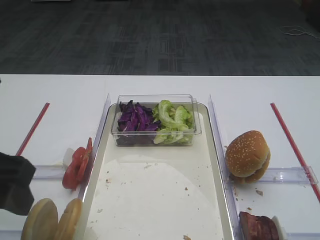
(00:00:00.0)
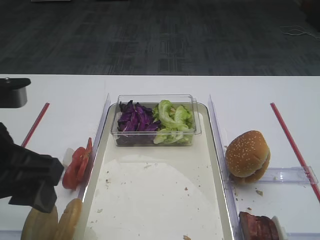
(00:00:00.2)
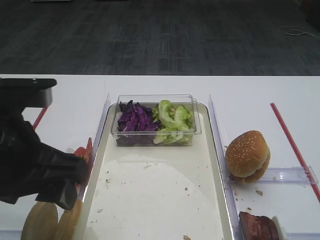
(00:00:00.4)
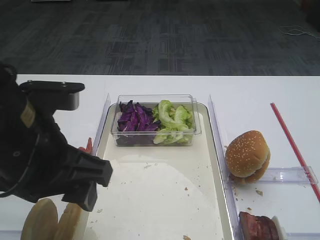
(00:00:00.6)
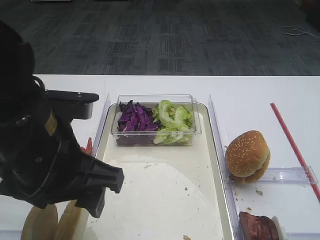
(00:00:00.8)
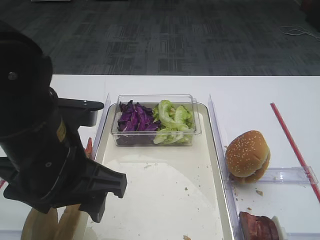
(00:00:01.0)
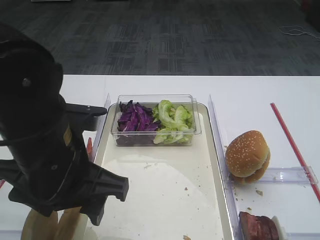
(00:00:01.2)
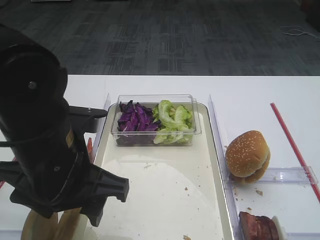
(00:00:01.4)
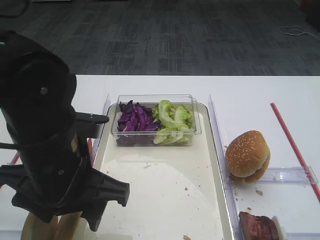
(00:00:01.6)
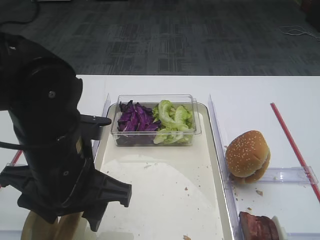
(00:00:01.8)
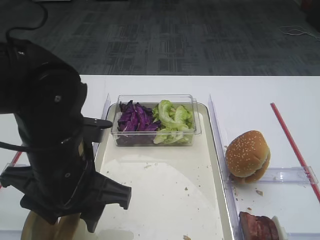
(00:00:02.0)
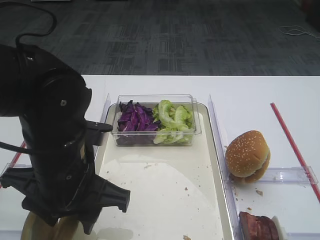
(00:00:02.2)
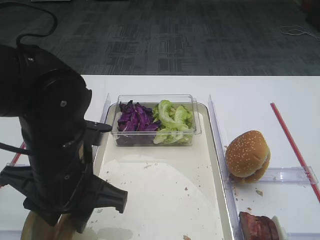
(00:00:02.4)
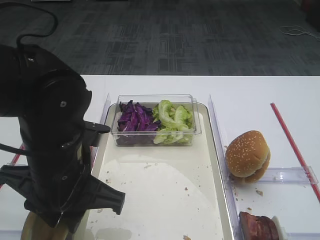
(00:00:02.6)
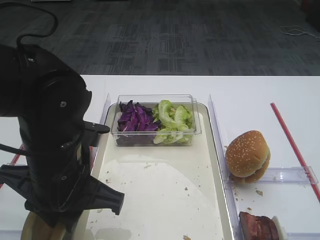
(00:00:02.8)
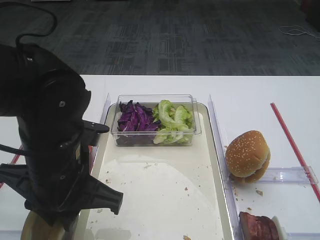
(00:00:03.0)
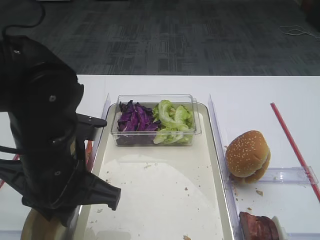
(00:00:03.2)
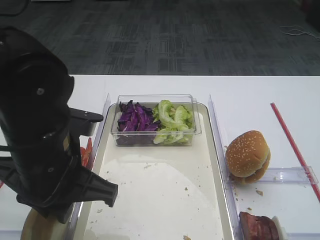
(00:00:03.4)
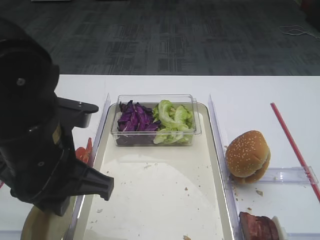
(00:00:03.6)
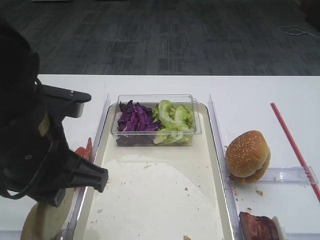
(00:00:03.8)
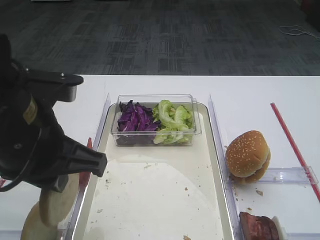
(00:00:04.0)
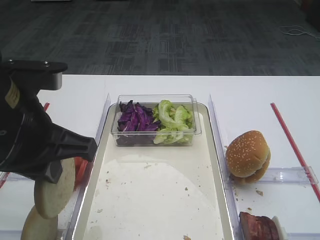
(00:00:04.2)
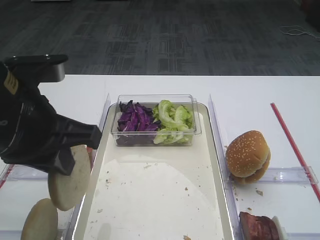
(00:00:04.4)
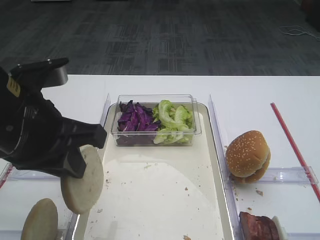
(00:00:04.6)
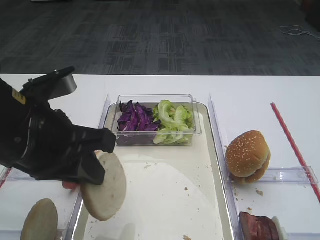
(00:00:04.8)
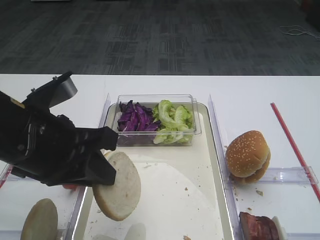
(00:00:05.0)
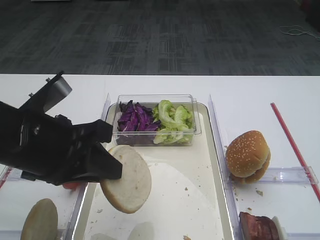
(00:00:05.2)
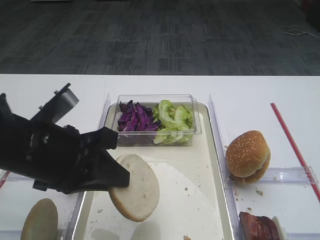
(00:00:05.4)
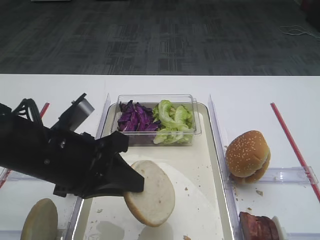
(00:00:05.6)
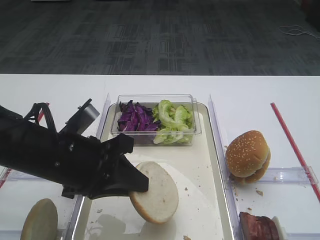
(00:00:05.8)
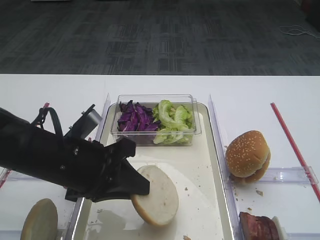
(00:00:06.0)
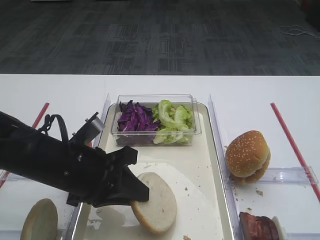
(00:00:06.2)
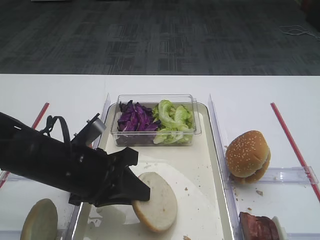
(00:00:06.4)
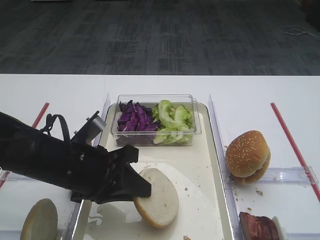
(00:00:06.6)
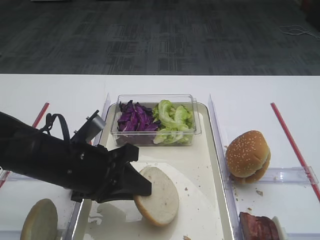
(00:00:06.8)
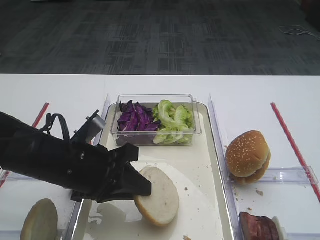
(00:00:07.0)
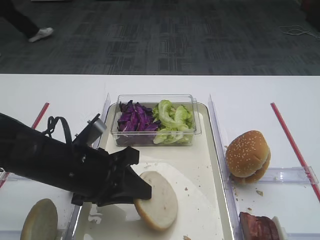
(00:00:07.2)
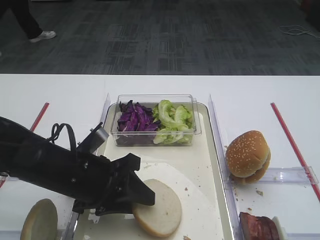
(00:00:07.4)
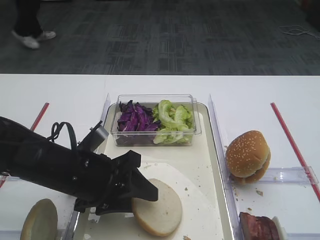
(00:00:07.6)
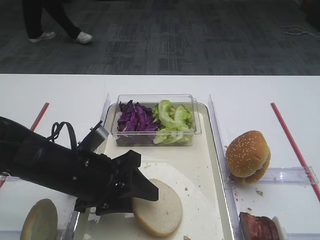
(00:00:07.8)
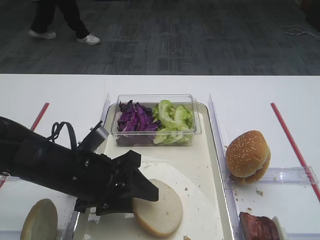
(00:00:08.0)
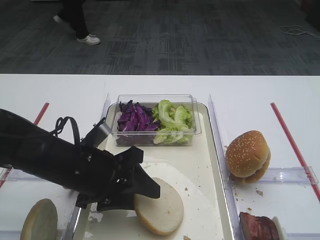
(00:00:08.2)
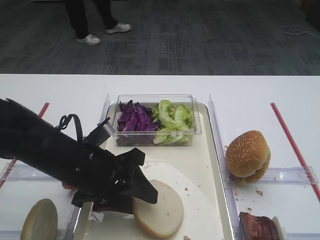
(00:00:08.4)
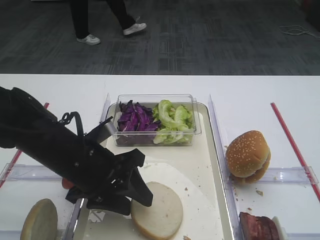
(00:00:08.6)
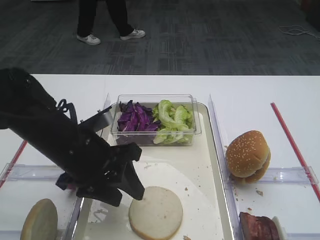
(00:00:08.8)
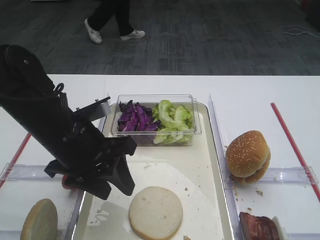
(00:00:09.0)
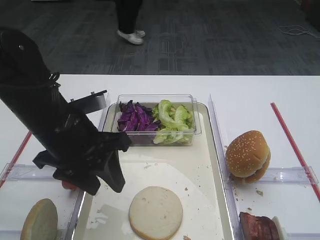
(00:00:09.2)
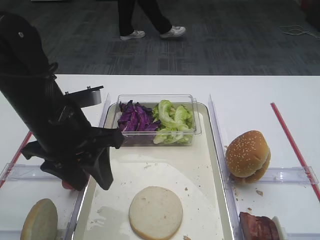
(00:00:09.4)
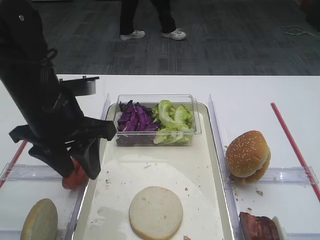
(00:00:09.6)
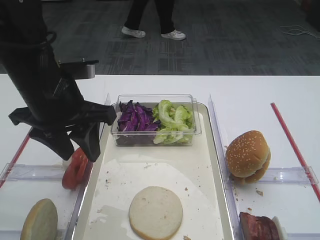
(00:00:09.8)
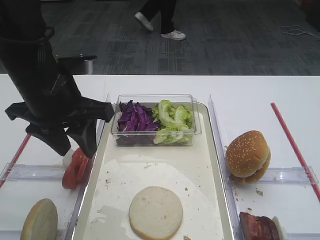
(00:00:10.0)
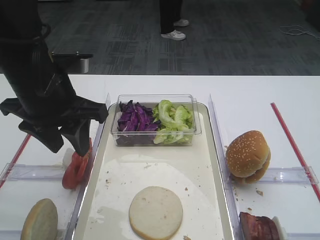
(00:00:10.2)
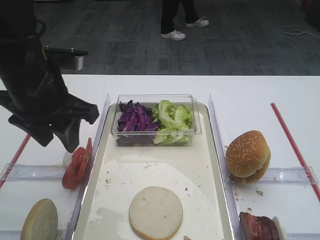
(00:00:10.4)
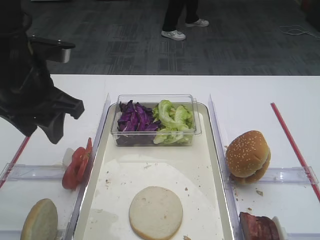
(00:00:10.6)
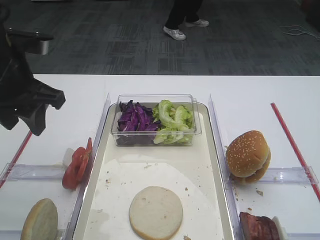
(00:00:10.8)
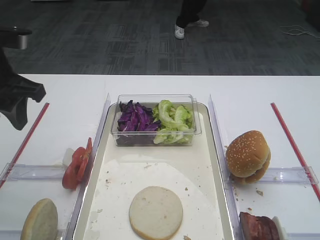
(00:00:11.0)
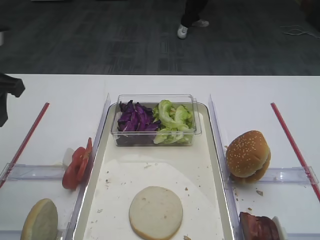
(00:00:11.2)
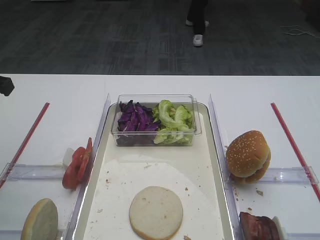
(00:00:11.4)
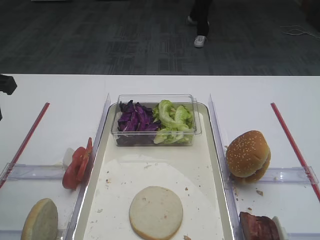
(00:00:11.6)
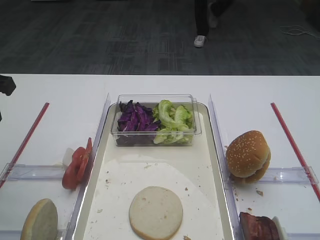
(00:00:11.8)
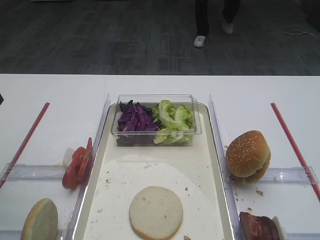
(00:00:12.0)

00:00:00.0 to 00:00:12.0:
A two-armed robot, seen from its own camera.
Step, 00:00:00.0 to 00:00:03.6: Pick up the bread slice with the left gripper.
Step, 00:00:03.8 to 00:00:08.8: Place the bread slice on the tray with the left gripper.
00:00:00.0 to 00:00:01.6: The left gripper shifts some 10 cm to the right and downward.
00:00:01.6 to 00:00:03.0: The left gripper closes its fingers.
00:00:03.0 to 00:00:04.4: The left gripper shifts roughly 10 cm upward.
00:00:04.4 to 00:00:06.0: The left gripper moves downward, some 10 cm.
00:00:06.0 to 00:00:07.6: The left gripper opens.
00:00:07.6 to 00:00:09.0: The left gripper moves upward, roughly 5 cm.
00:00:09.0 to 00:00:10.4: The left gripper travels upward by about 10 cm.
00:00:10.4 to 00:00:12.0: The left gripper moves to the left, some 10 cm.

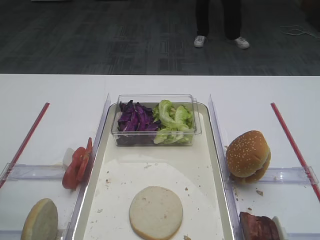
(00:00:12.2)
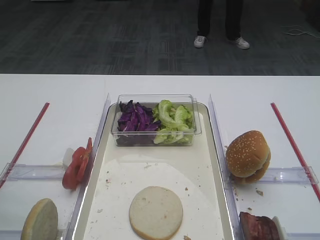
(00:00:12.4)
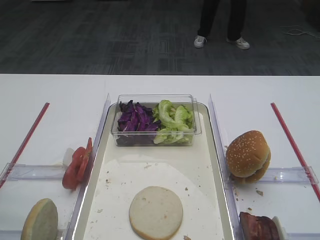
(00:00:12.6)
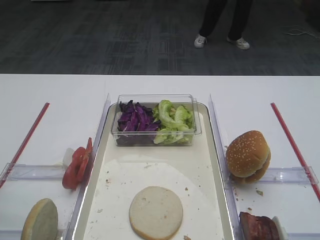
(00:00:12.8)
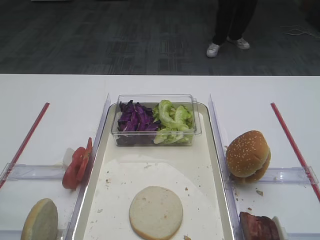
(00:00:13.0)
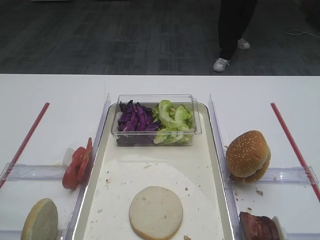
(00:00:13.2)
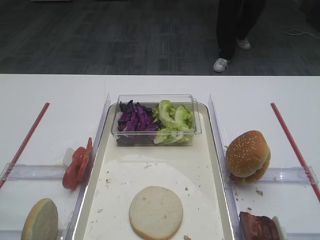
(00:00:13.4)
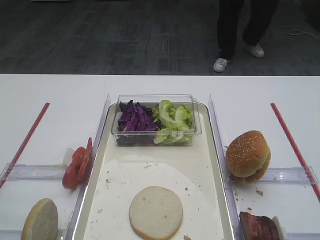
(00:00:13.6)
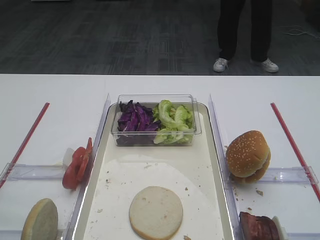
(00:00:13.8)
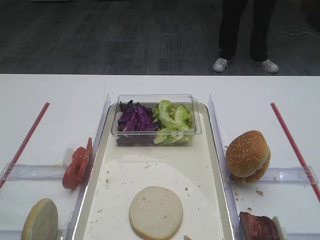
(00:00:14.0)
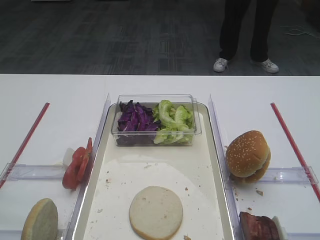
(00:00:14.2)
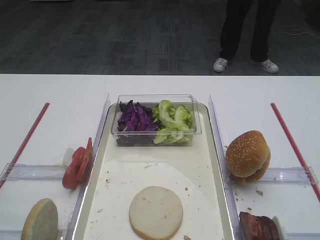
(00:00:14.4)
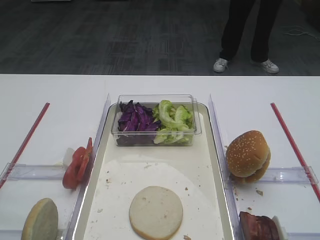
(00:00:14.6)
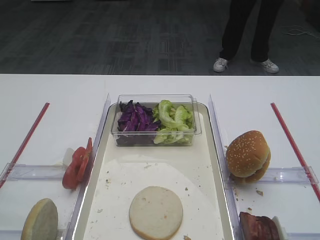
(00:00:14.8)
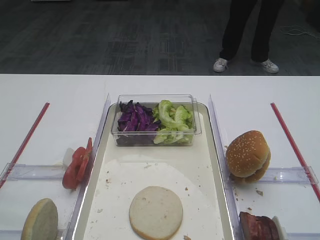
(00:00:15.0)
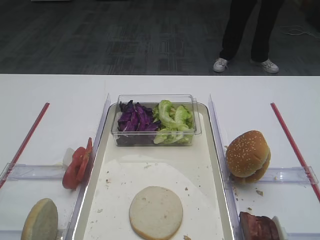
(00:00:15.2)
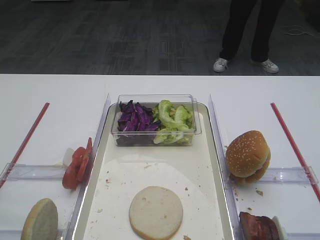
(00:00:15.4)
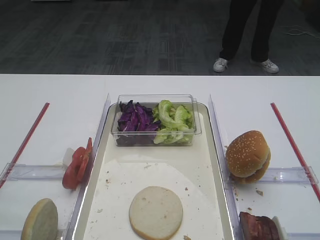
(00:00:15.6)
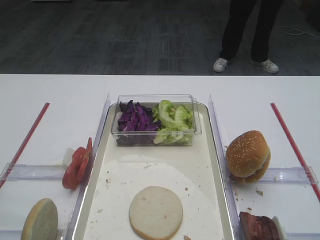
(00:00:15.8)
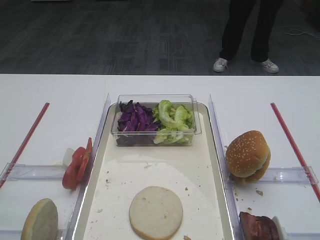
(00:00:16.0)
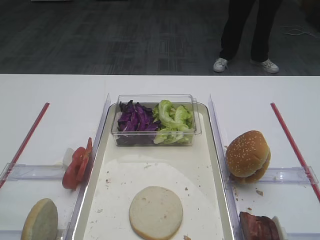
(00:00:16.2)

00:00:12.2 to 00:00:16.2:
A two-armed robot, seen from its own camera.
00:00:14.8 to 00:00:16.2: Both grippers stay about where they are.

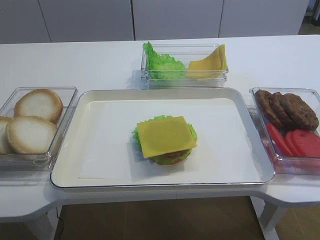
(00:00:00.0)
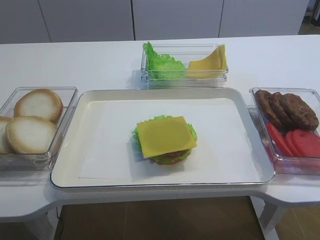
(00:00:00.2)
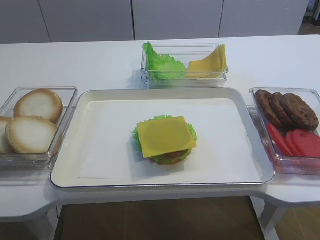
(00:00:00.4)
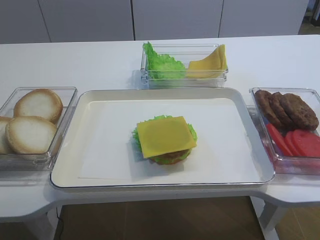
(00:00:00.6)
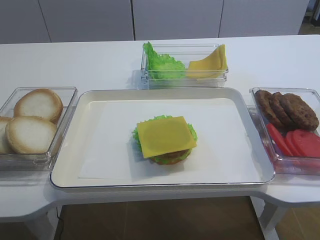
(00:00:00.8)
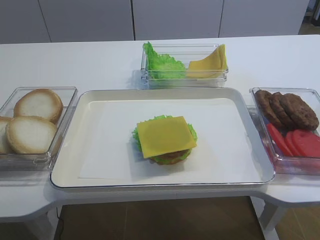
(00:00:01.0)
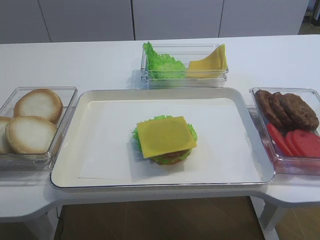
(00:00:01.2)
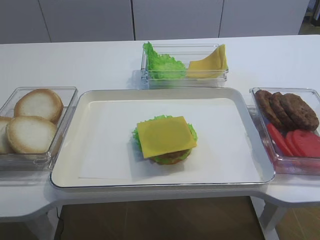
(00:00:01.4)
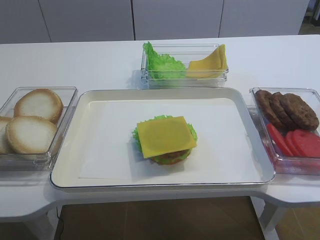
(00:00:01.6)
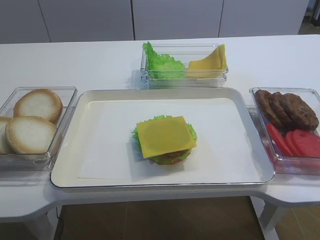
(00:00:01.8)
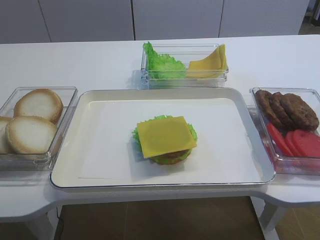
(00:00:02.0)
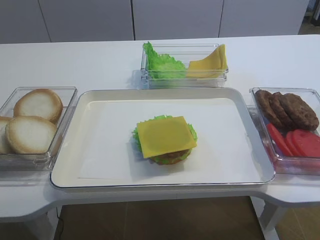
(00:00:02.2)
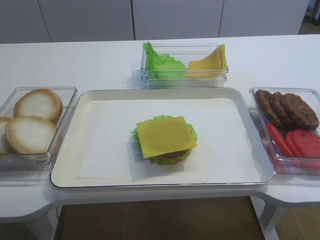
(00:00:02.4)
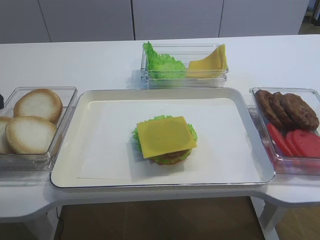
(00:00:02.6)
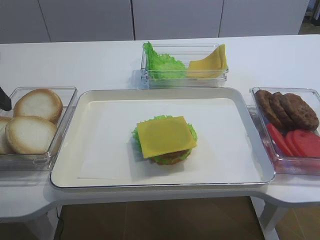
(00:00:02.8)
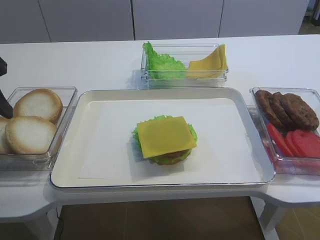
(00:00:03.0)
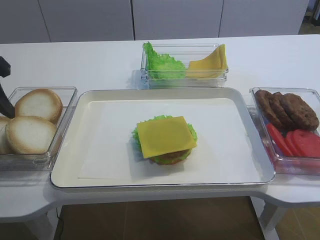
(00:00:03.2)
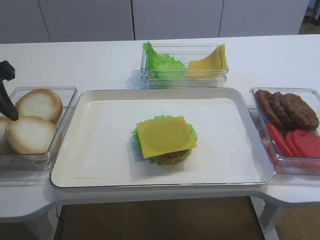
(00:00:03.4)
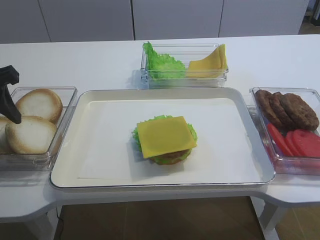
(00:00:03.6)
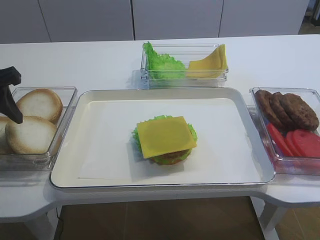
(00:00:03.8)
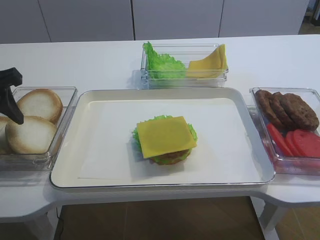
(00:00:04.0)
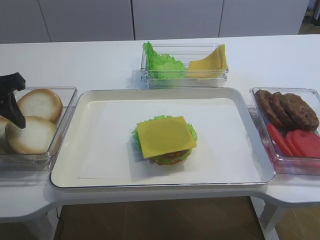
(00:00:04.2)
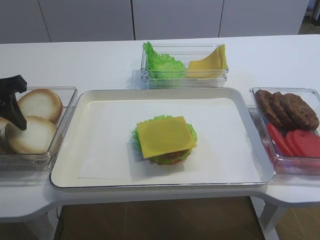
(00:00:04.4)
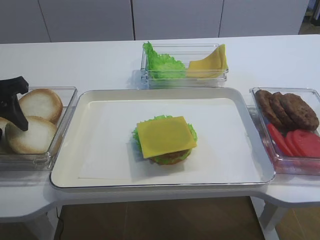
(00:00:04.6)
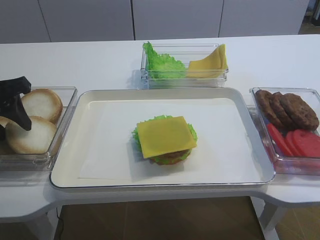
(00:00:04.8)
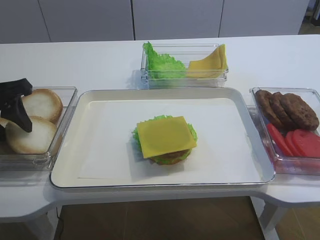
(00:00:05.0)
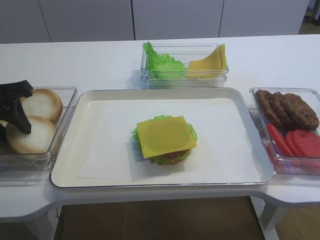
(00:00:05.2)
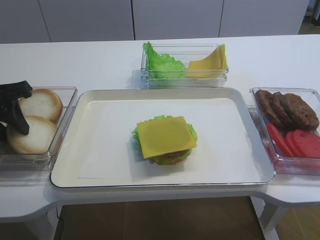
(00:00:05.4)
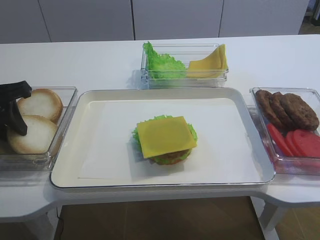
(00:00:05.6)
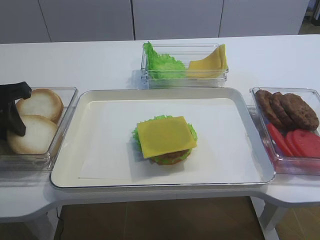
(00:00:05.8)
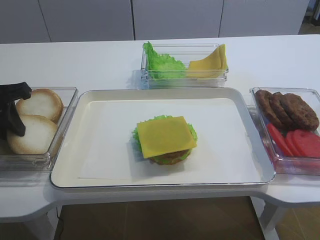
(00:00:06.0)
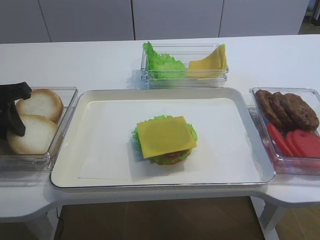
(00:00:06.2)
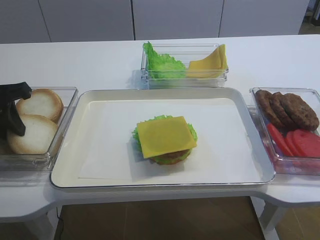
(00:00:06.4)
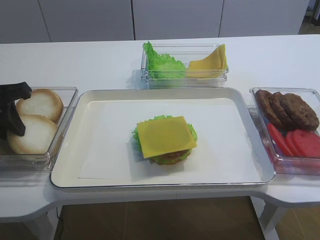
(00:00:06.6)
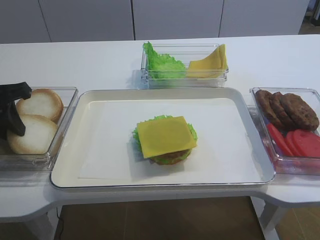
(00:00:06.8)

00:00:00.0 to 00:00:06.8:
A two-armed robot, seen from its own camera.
00:00:02.8 to 00:00:04.0: The left gripper ends up some 5 cm from where it was.
00:00:04.0 to 00:00:05.4: The left gripper closes.
